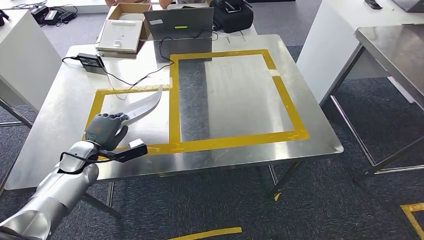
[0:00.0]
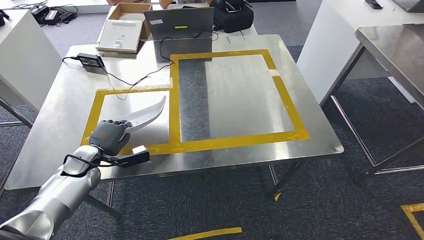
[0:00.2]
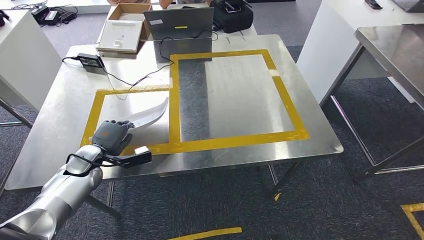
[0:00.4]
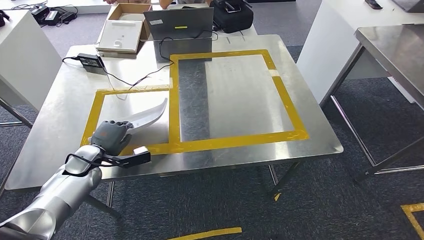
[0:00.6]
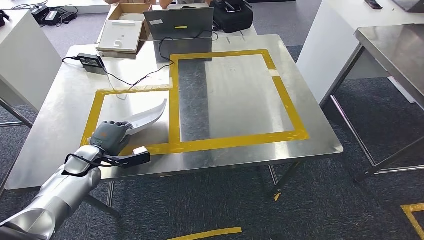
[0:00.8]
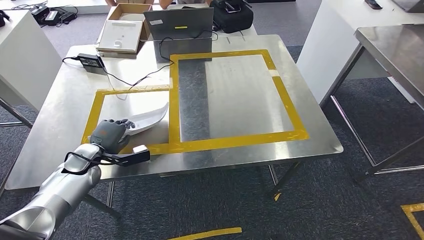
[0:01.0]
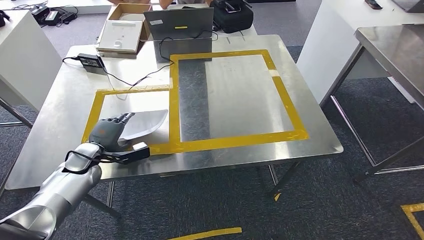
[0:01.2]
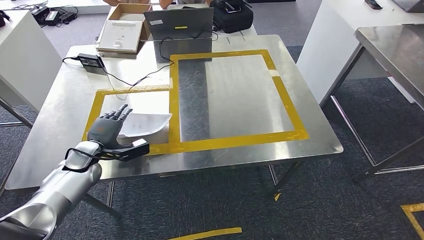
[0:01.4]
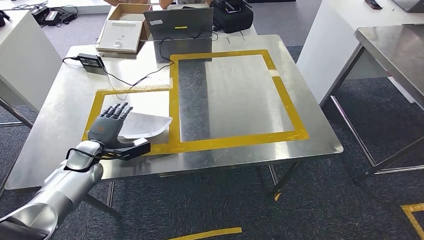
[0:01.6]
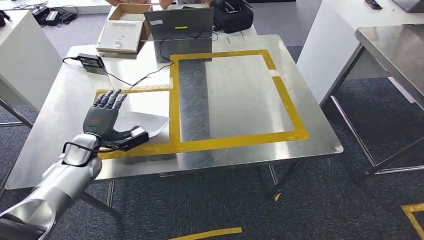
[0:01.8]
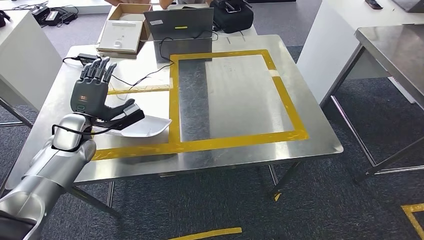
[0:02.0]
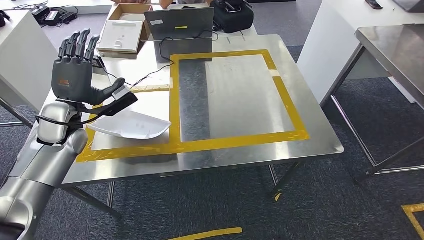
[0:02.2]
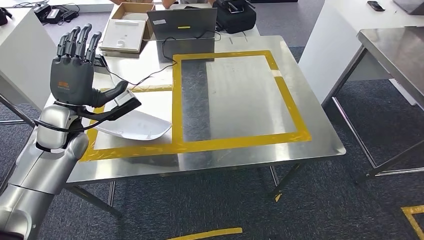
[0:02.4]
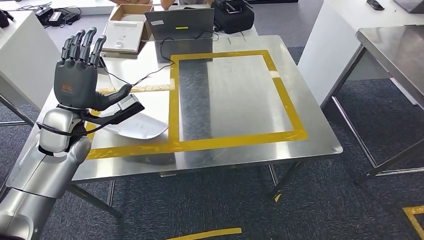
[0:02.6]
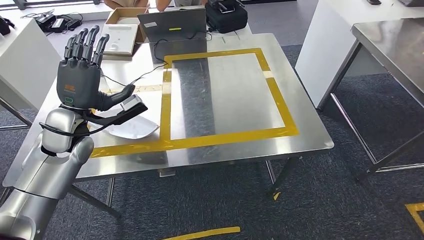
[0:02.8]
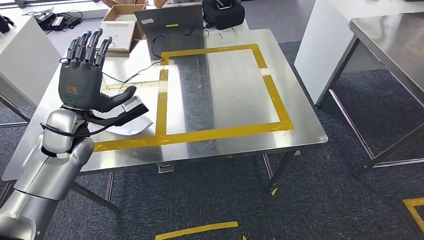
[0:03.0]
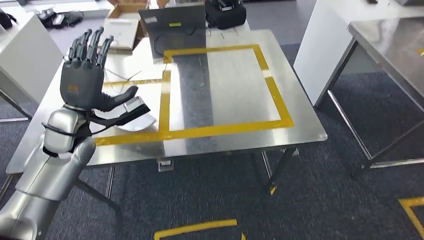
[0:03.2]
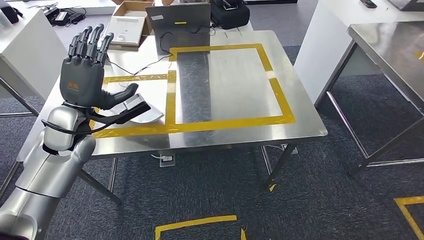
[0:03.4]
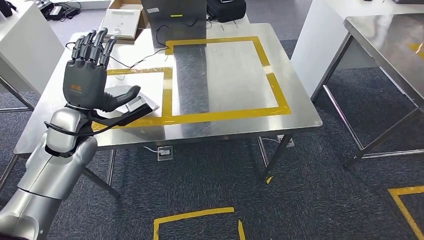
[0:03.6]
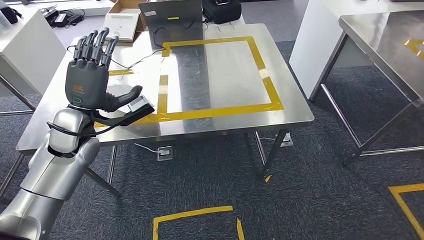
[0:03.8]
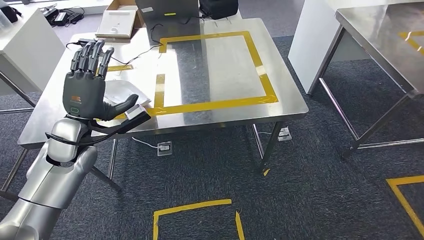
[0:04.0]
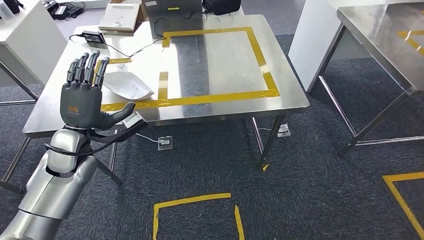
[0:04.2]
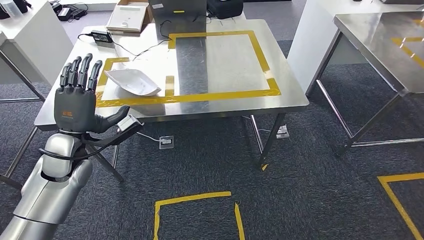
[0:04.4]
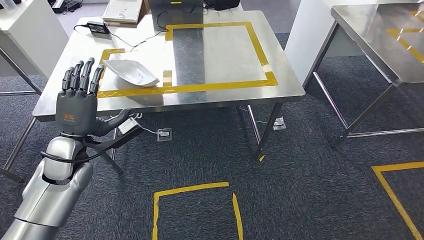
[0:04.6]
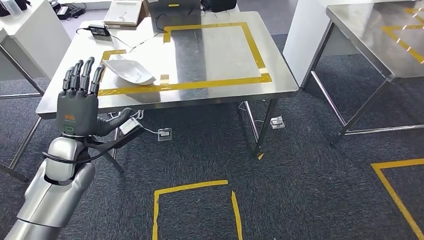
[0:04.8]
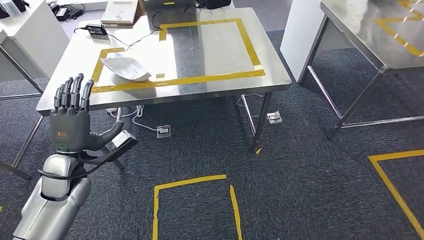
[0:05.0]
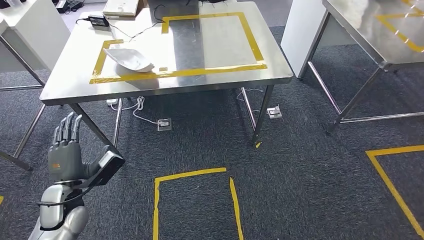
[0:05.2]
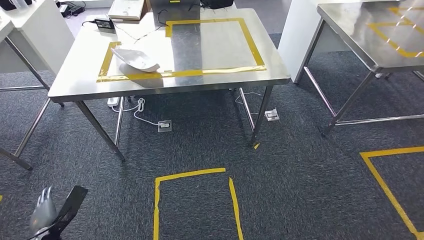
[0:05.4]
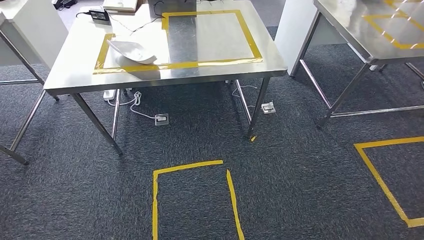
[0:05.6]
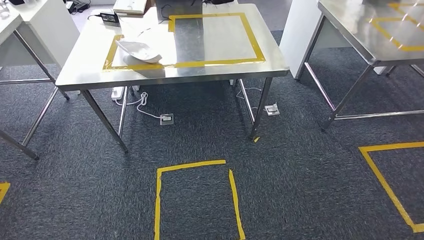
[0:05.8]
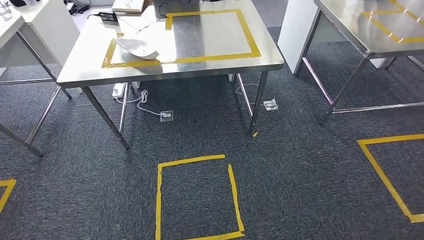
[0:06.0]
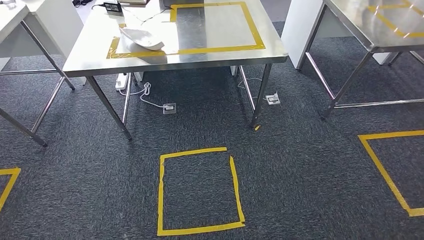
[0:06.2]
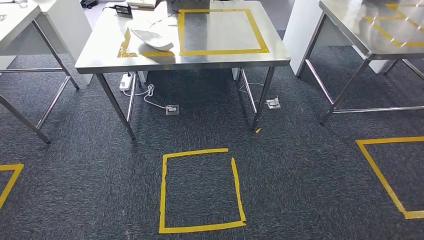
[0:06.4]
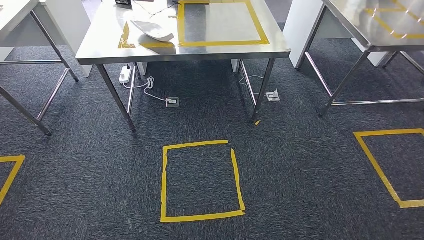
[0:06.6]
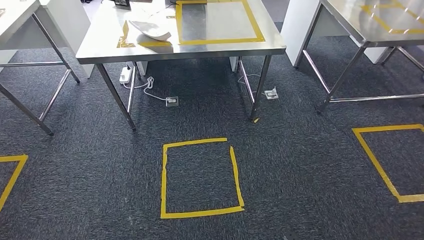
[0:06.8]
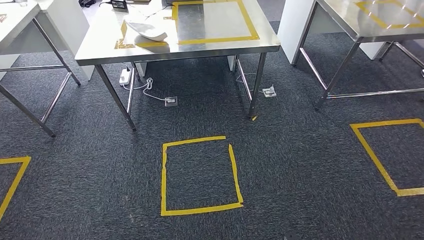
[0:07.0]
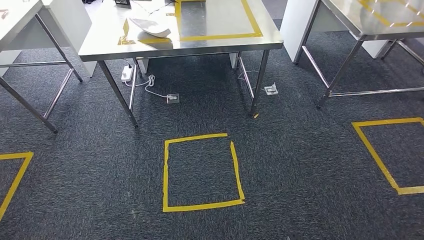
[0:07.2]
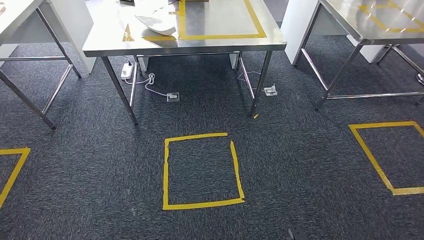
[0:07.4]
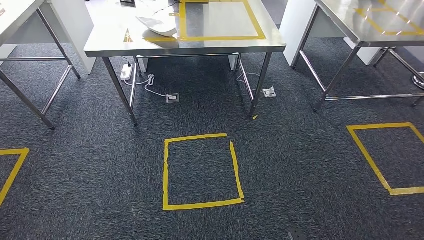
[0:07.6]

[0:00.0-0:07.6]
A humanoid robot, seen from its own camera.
Step, 0:00.0 to 0:02.6: Insert the small component into the corresponding slot on the workbench.
Step, 0:02.8 to 0:07.6: Return to the initial position at the workbench.
0:00.0 to 0:01.6: There are only small adjustments of the hands.
